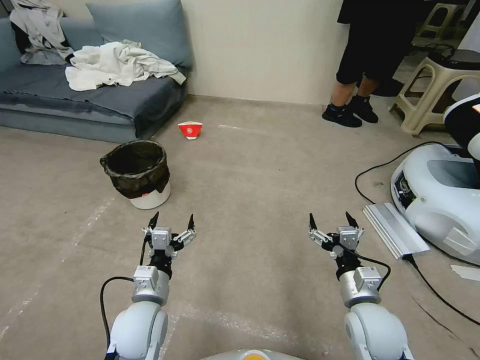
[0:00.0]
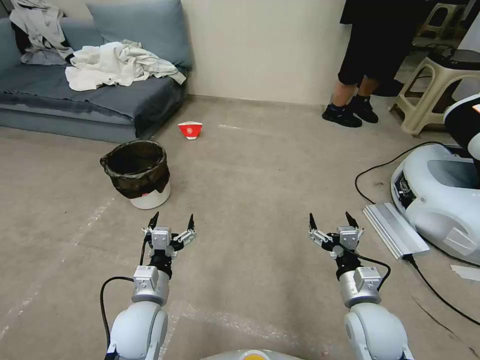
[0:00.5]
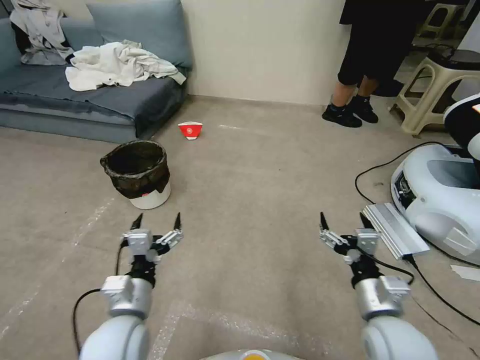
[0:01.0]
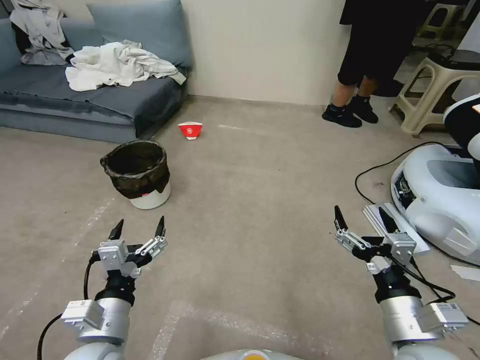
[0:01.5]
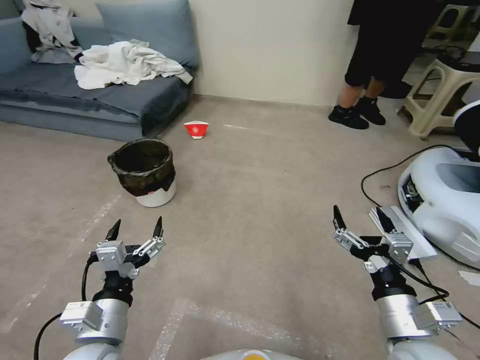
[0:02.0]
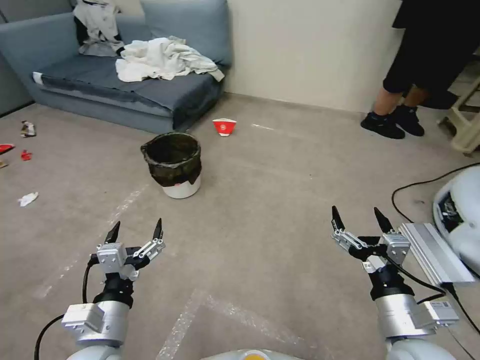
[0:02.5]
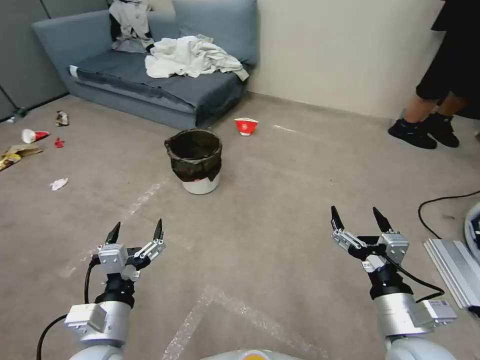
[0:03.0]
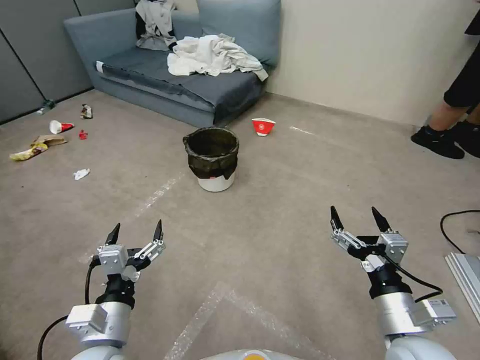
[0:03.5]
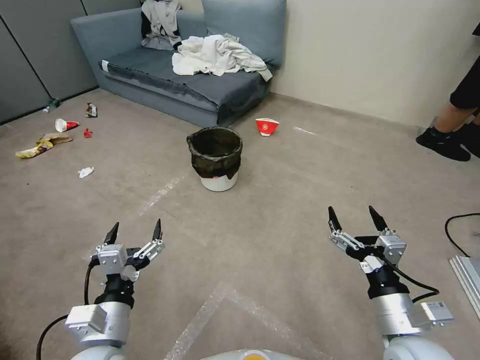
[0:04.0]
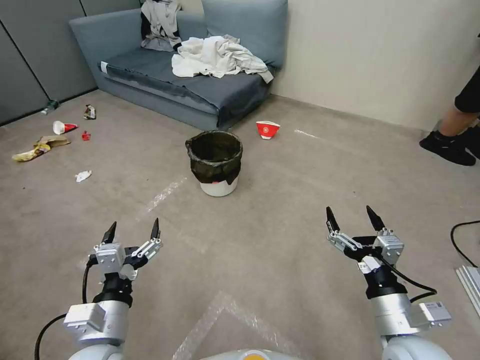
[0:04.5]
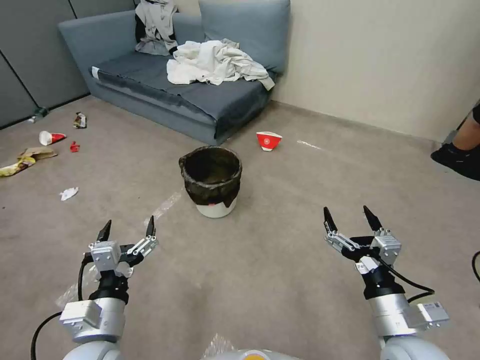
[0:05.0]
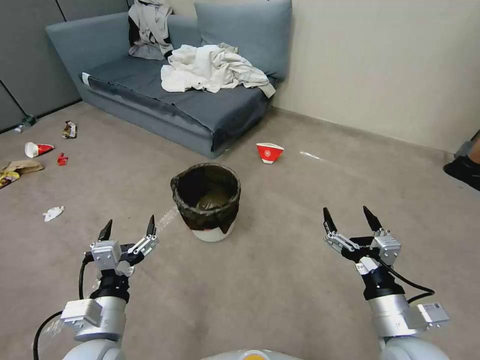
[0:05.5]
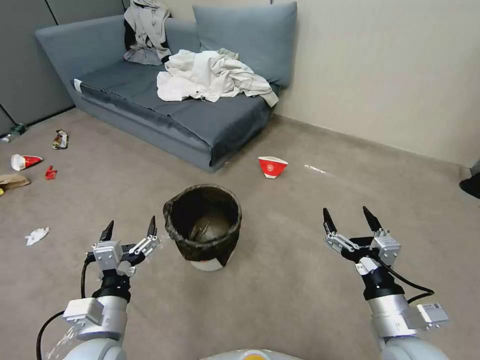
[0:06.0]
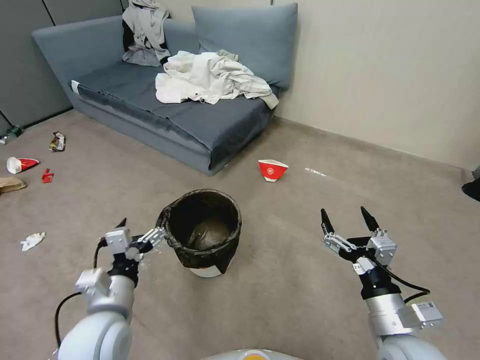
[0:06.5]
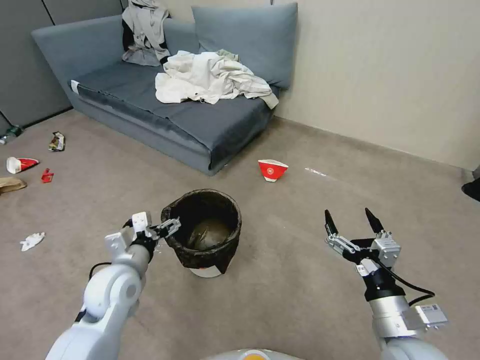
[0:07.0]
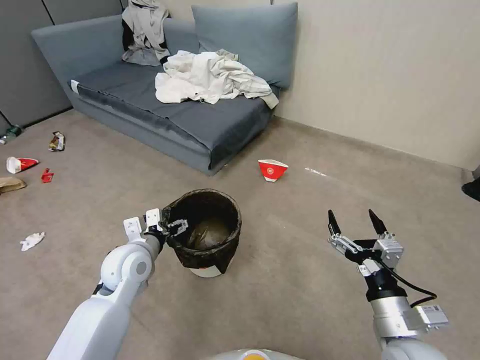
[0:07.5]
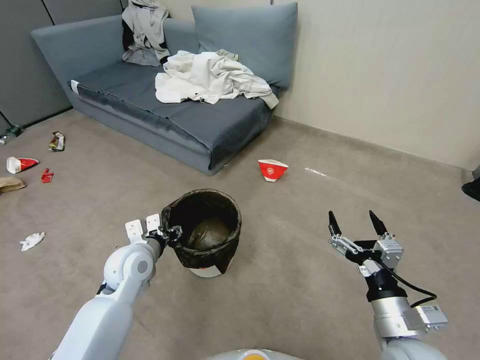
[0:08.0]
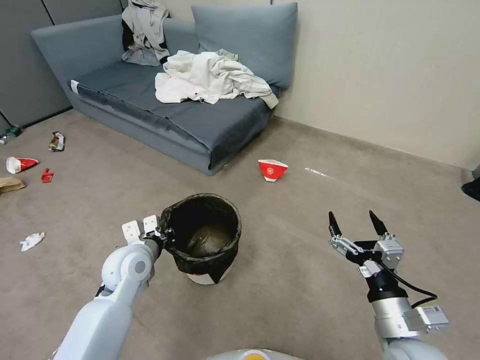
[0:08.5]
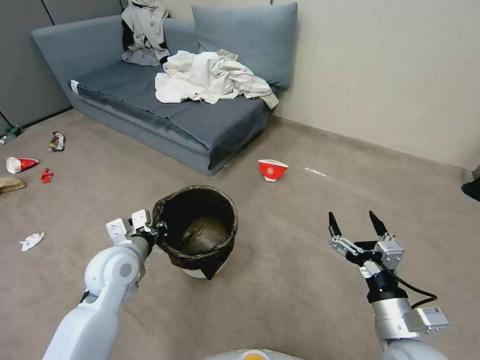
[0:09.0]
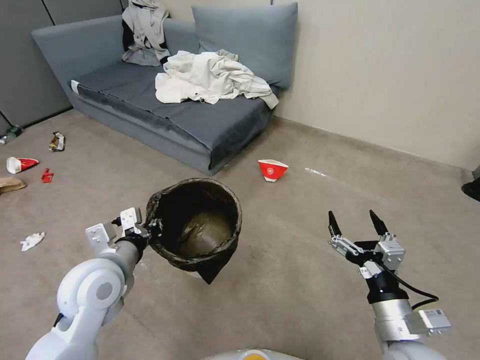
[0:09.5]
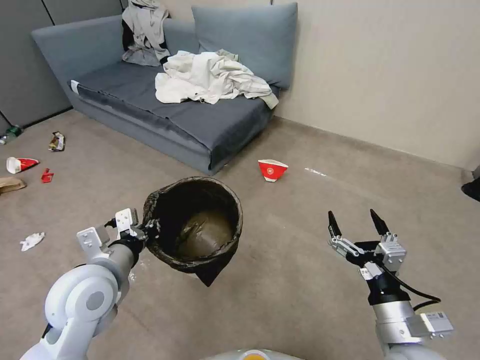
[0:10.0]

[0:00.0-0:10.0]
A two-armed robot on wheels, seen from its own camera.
Task of the whole recording: Pick up the trash can from the floor.
0:06.0 to 0:08.0: The left gripper moves forward, about 20 cm, and closes.
0:08.0 to 0:10.0: The left gripper moves upward and backward, about 15 cm, and closes.
